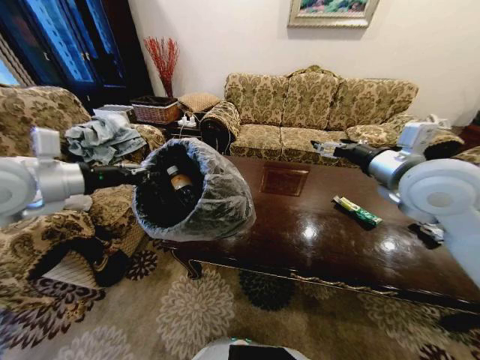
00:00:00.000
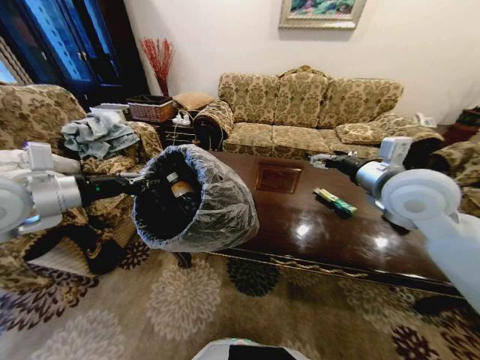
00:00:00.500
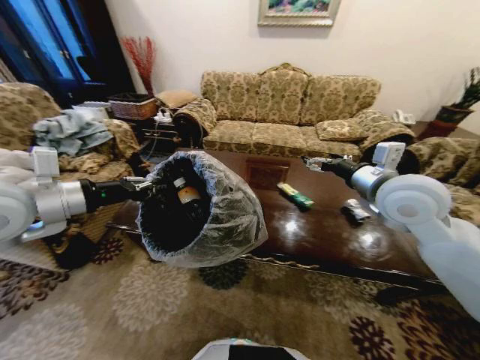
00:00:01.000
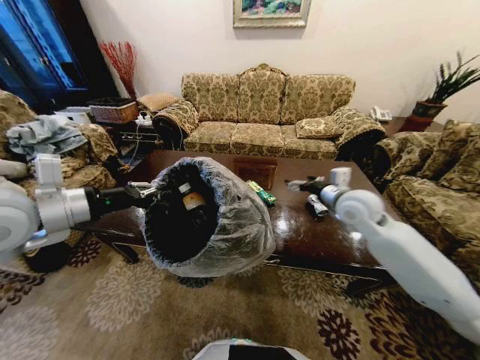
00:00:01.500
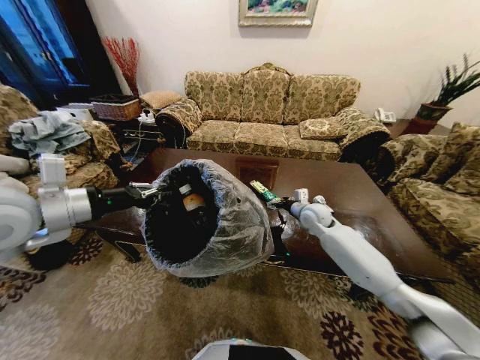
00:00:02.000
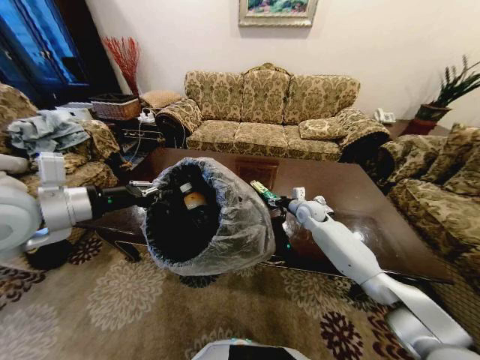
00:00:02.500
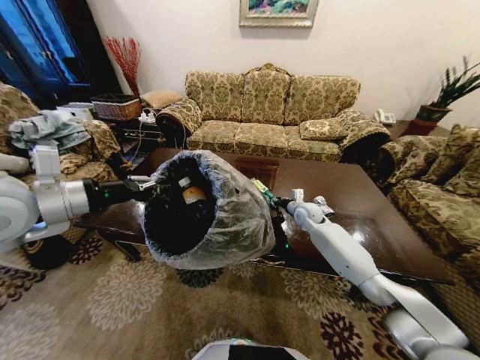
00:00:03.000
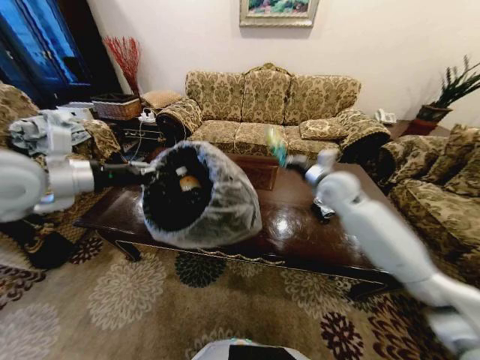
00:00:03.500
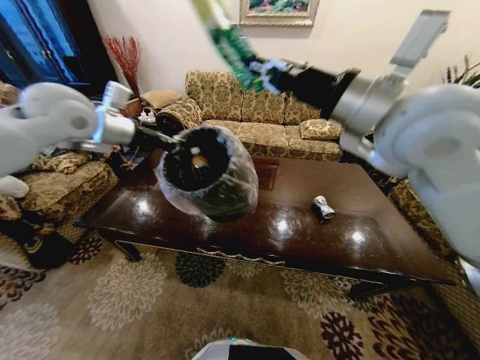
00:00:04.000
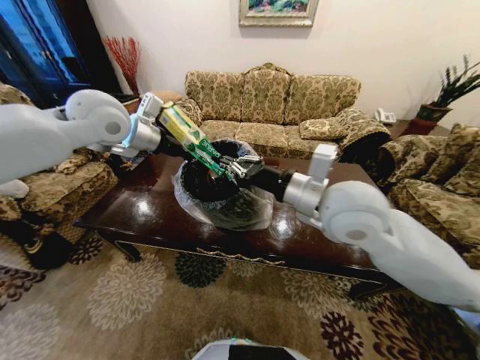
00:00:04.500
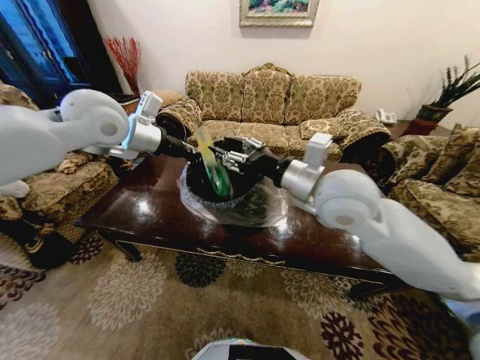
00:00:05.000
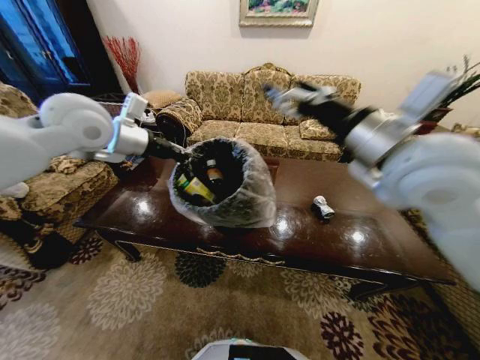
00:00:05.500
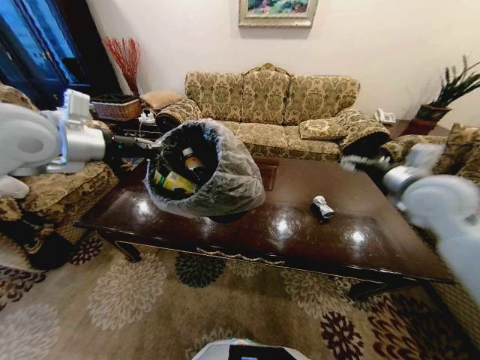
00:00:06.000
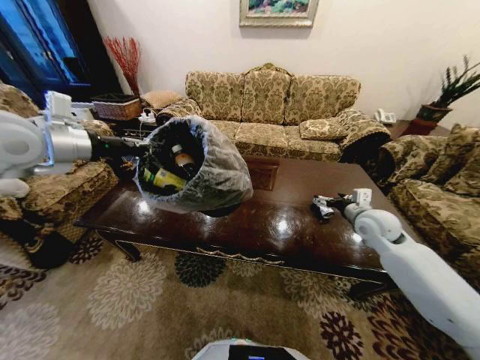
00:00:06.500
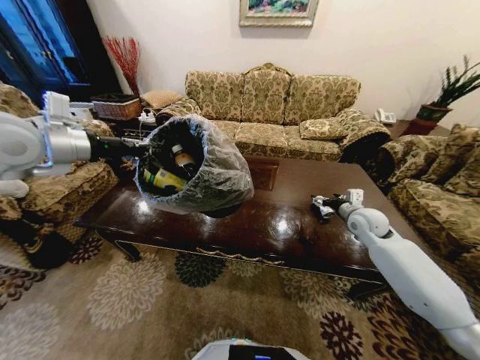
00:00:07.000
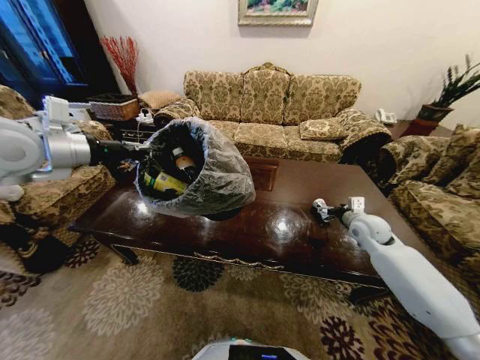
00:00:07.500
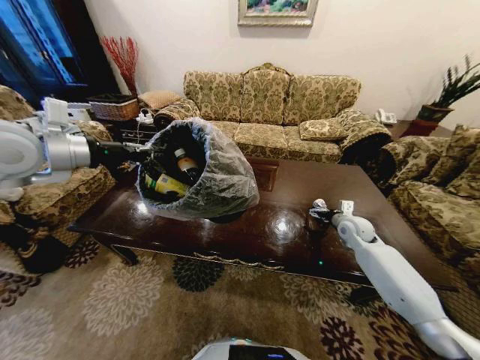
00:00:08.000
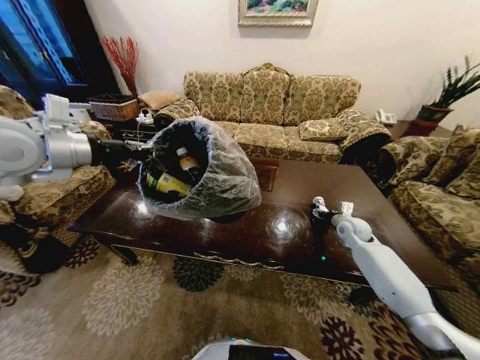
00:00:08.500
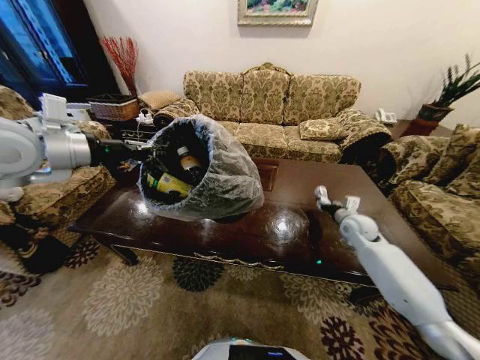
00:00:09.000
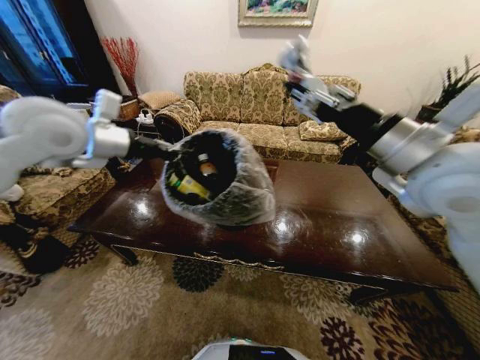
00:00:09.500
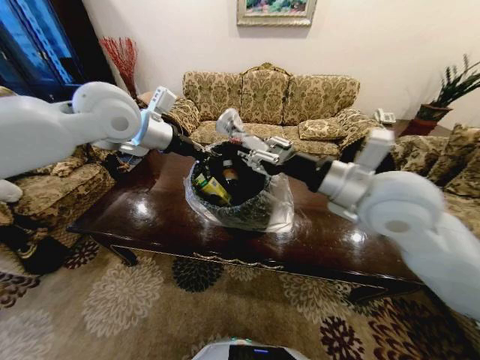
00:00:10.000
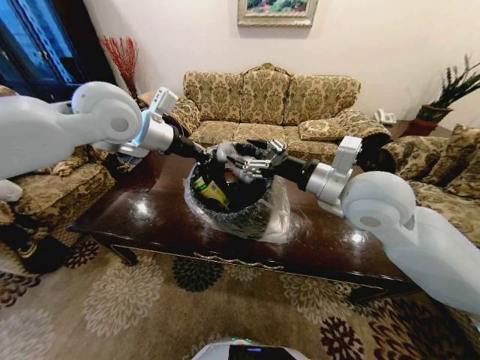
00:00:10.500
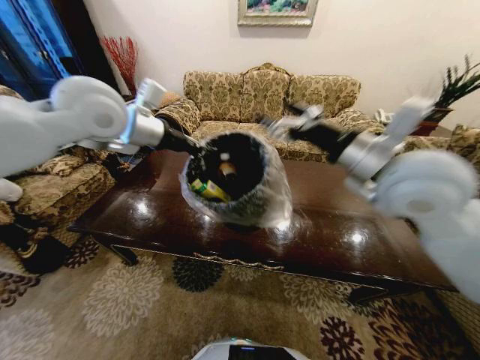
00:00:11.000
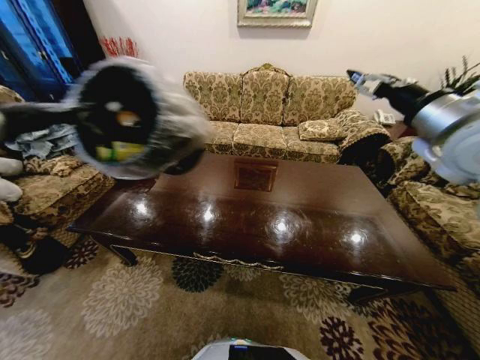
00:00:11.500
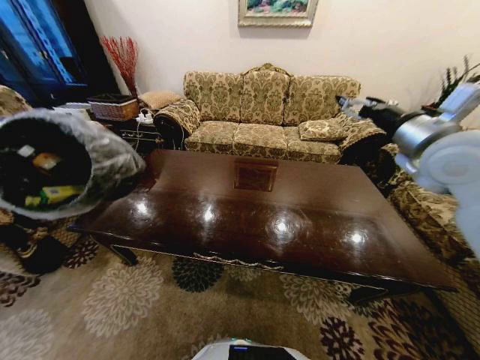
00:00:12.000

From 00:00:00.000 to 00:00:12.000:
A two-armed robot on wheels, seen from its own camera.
Task of the whole recording: Move to the front of the table and place the trash on the table into the trash bin.
From 00:00:00.000 to 00:00:02.000: The left gripper moves roughly 5 cm. Meanwhile the right gripper shifts approximately 30 cm downward and forward.
From 00:00:02.000 to 00:00:04.000: The right gripper shifts some 40 cm upward and backward, and closes. The left gripper shifts approximately 20 cm forward and upward.
From 00:00:04.000 to 00:00:06.000: The right gripper travels to the right and downward by about 25 cm, and opens up. The left gripper heads backward, covering about 5 cm, and moves about 5 cm to the right and comes back.
From 00:00:06.000 to 00:00:08.000: The right gripper moves downward, some 25 cm.
From 00:00:08.000 to 00:00:10.000: The right gripper moves upward, to the left and backward, approximately 35 cm, and closes its fingers. Meanwhile the left gripper goes some 15 cm to the right and forward.
From 00:00:10.000 to 00:00:12.000: The left gripper goes some 40 cm to the left and backward. Meanwhile the right gripper is displaced to the right and forward by some 15 cm, and opens its fingers.

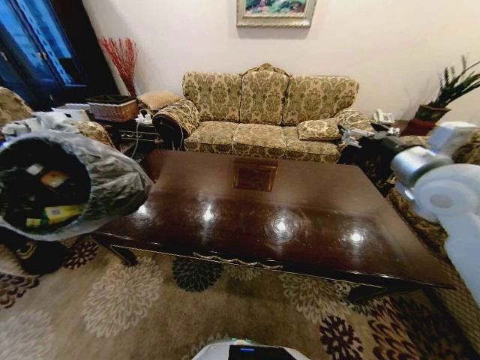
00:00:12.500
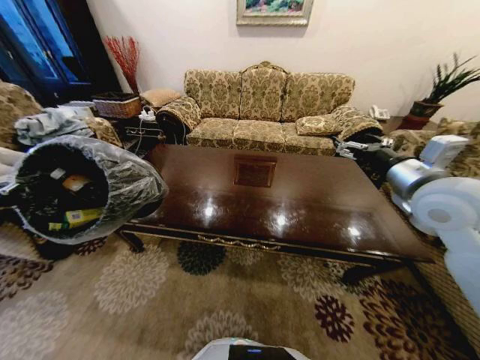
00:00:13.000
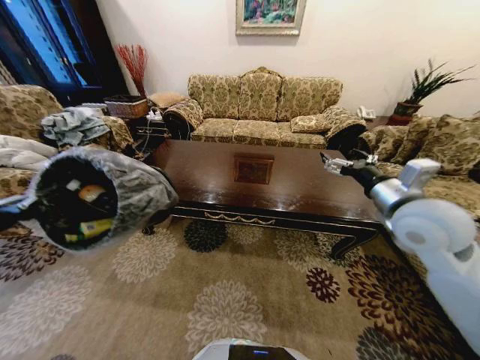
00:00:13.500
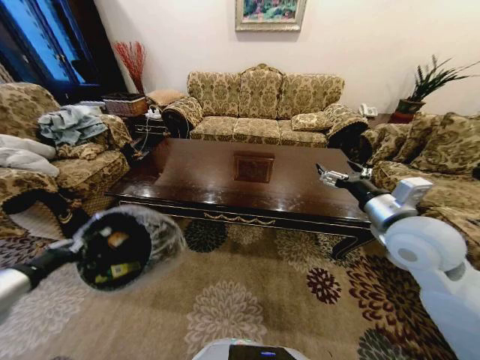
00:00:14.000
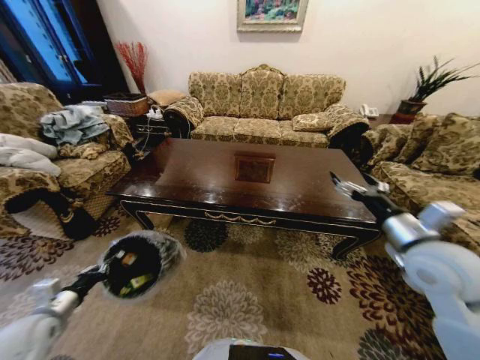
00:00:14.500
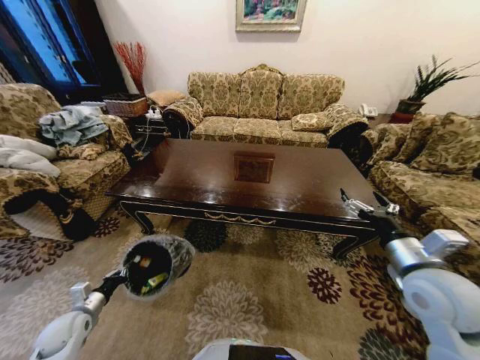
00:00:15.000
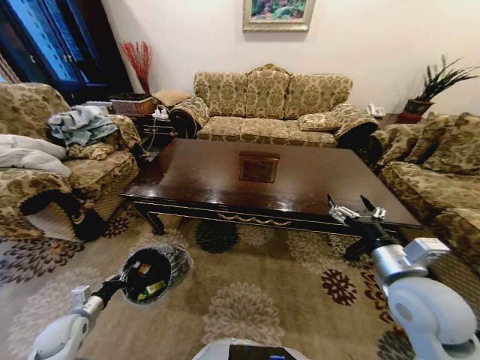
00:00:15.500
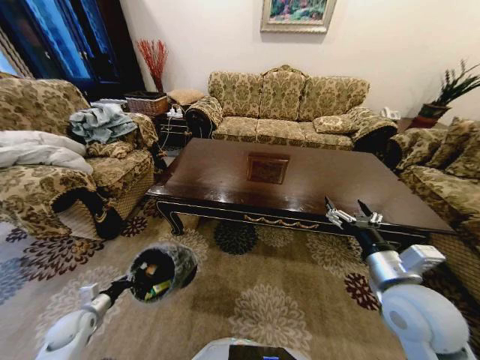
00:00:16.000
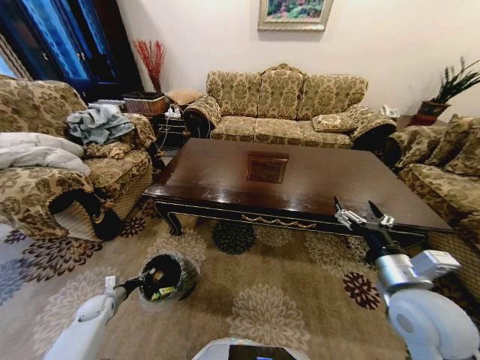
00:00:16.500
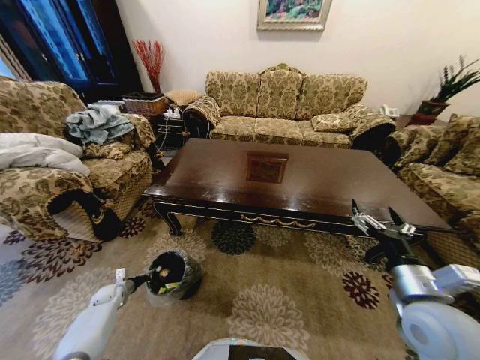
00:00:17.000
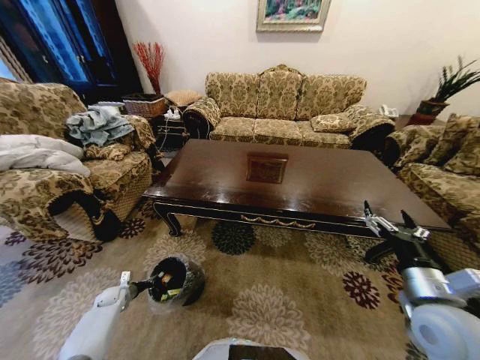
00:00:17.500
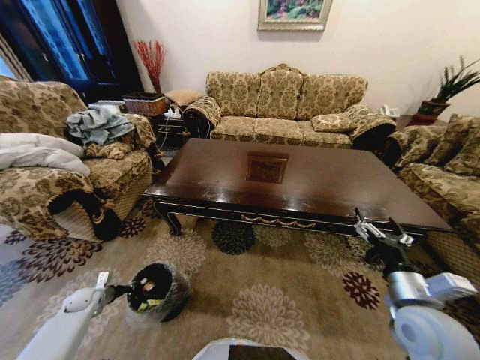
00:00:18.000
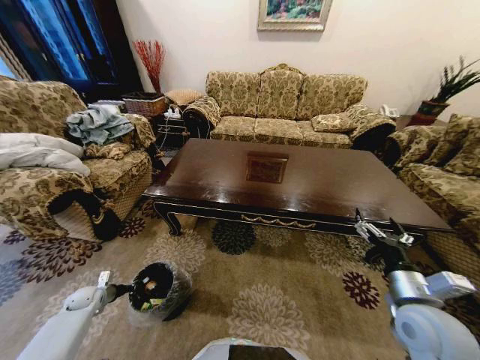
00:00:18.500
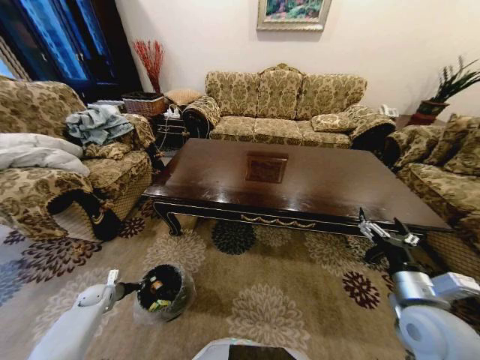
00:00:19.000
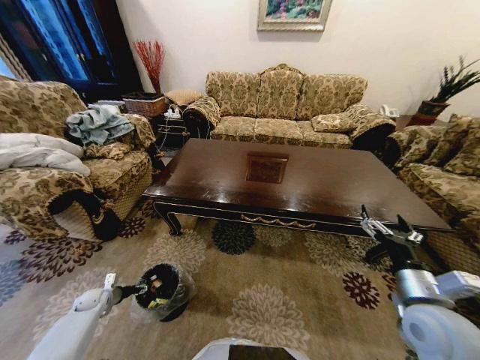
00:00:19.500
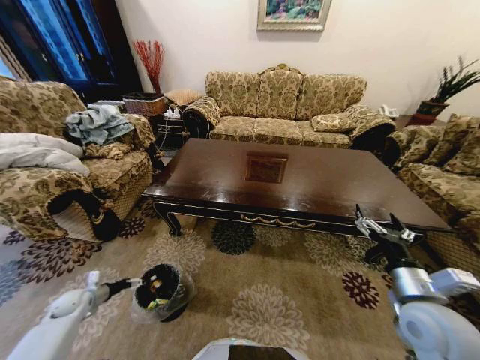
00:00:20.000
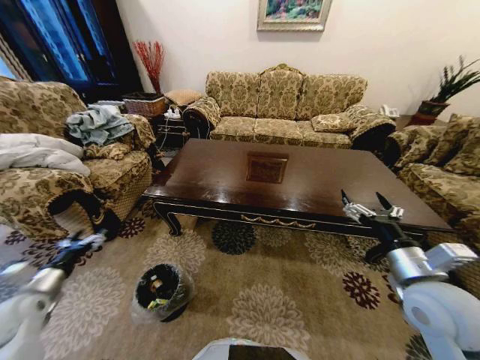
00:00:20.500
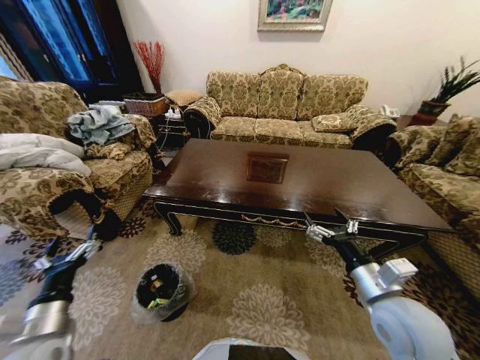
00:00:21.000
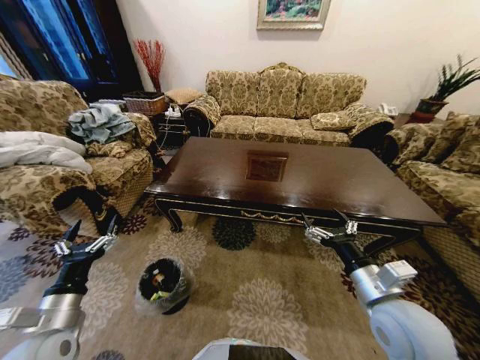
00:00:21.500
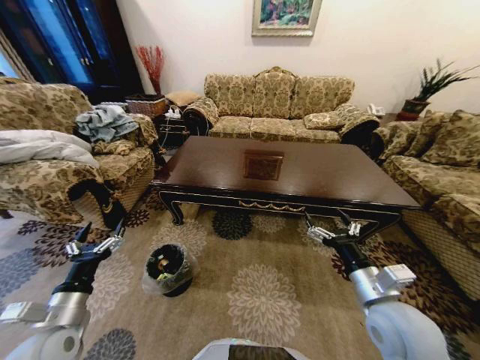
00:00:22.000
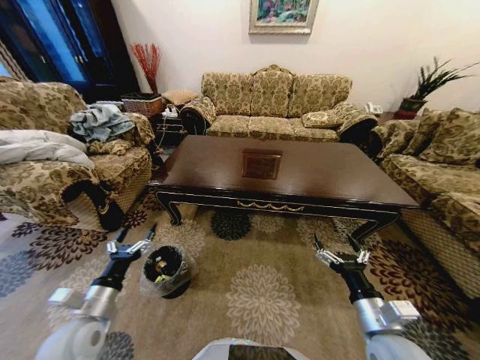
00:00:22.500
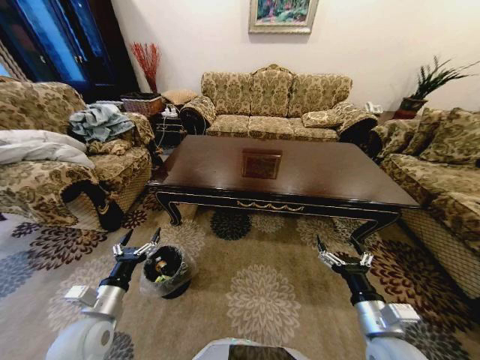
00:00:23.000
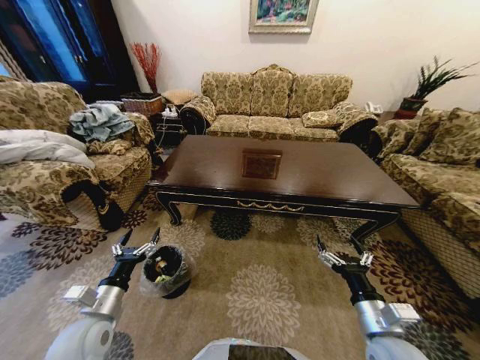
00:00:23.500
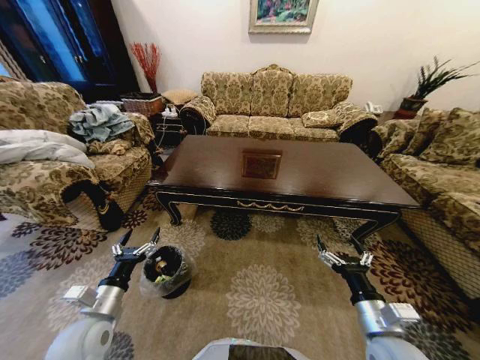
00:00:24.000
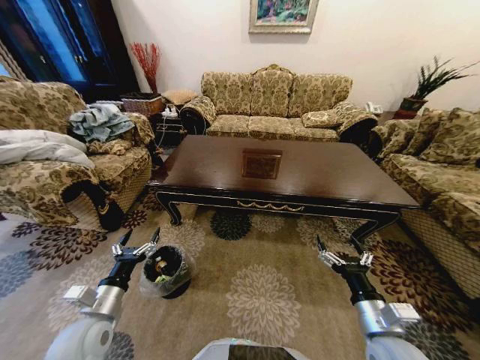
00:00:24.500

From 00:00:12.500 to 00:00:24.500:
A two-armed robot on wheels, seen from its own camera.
Task of the whole recording: Move to the front of the table and place the trash on the table into the trash bin.
From 00:00:12.500 to 00:00:14.500: The right gripper is displaced downward and backward by approximately 15 cm. Meanwhile the left gripper shifts approximately 30 cm downward.
From 00:00:14.500 to 00:00:16.500: The right gripper travels backward and downward by about 10 cm, while the left gripper moves downward and forward, approximately 25 cm.
From 00:00:16.500 to 00:00:18.500: The left gripper ends up roughly 5 cm from where it was, while the right gripper ends up roughly 5 cm from where it was.
From 00:00:18.500 to 00:00:20.500: The left gripper shifts about 20 cm upward and backward, and opens its fingers. The right gripper is displaced upward by about 5 cm.
From 00:00:20.500 to 00:00:22.500: The right gripper travels downward and backward by about 10 cm, while the left gripper travels to the right by about 20 cm.
From 00:00:22.500 to 00:00:24.500: There are only small adjustments of the grippers.

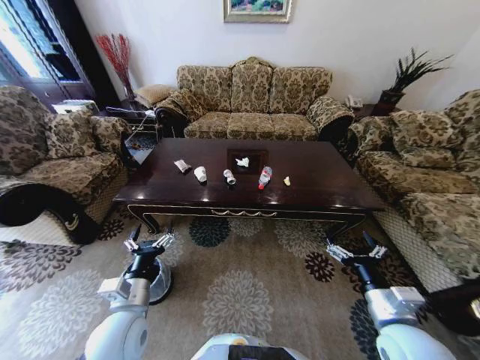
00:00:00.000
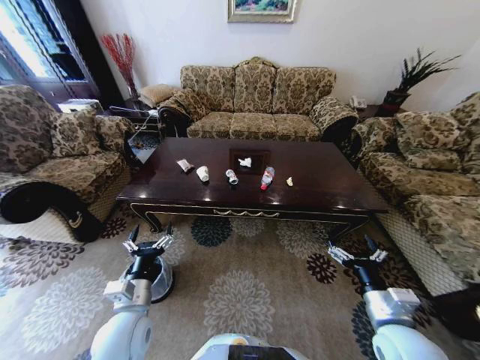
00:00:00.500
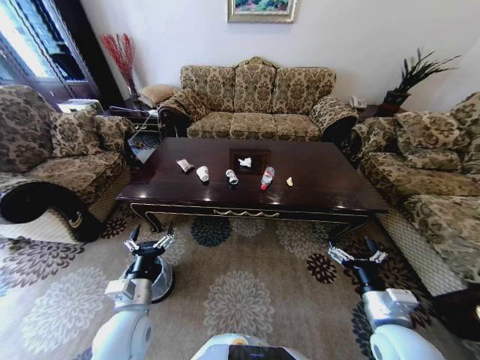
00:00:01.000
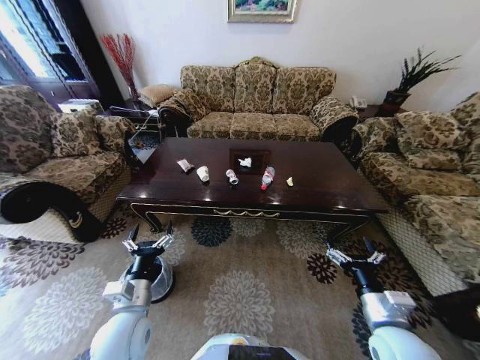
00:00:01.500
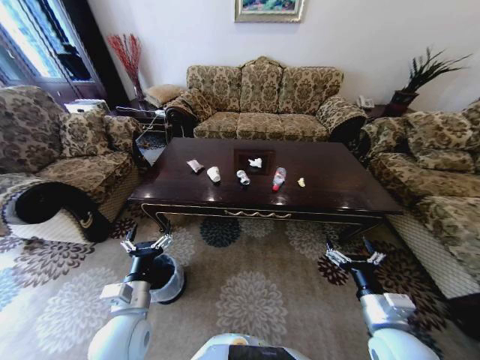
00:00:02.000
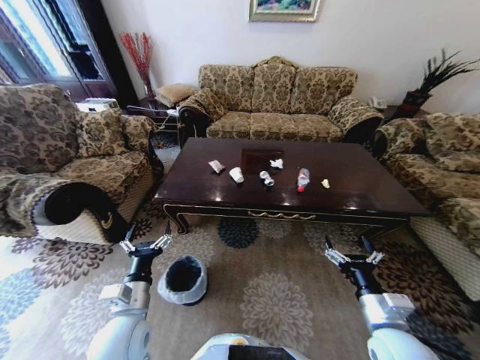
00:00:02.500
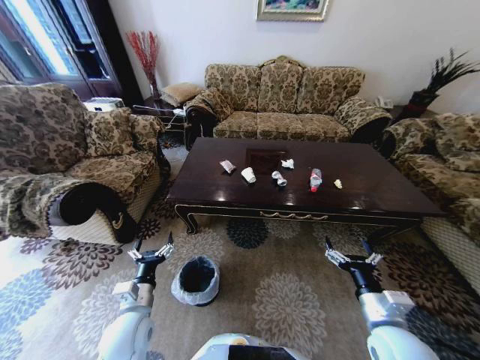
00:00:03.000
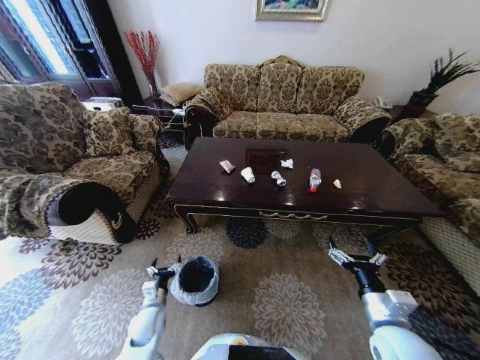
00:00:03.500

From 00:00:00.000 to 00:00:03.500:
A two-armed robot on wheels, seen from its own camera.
Task of the whole recording: Move to the front of the table and place the trash on the table into the trash bin.
From 00:00:02.000 to 00:00:03.500: The left gripper travels downward by roughly 20 cm.
